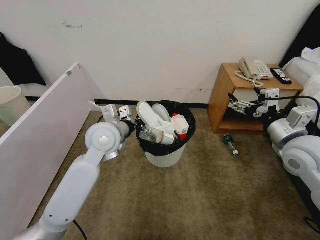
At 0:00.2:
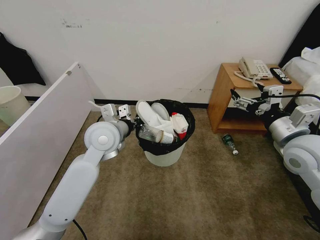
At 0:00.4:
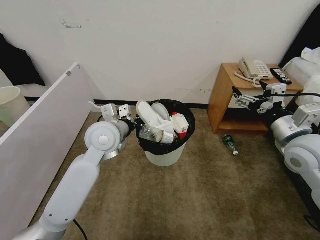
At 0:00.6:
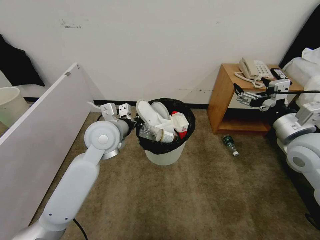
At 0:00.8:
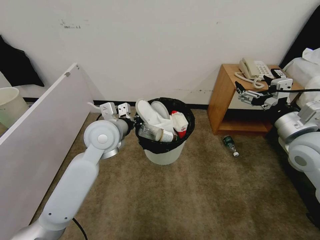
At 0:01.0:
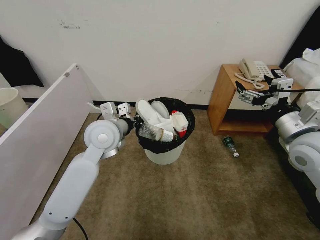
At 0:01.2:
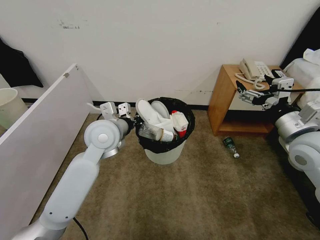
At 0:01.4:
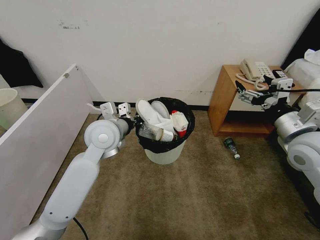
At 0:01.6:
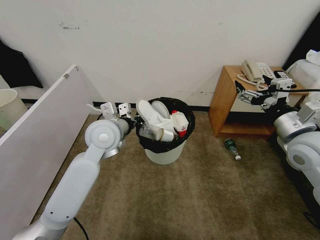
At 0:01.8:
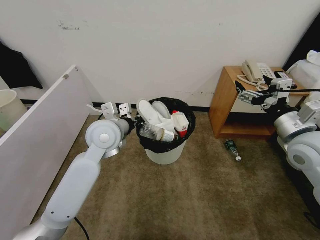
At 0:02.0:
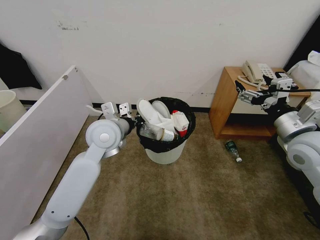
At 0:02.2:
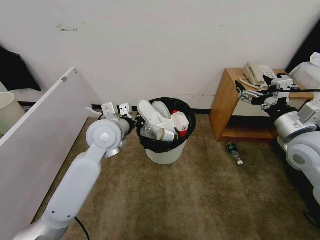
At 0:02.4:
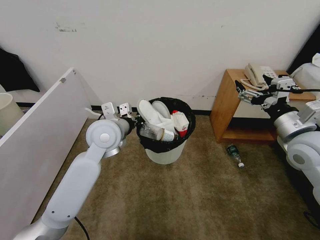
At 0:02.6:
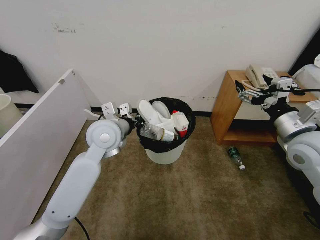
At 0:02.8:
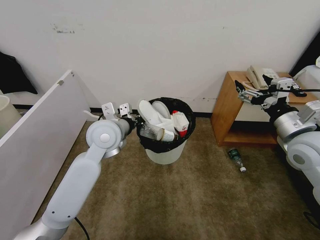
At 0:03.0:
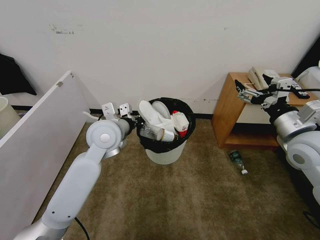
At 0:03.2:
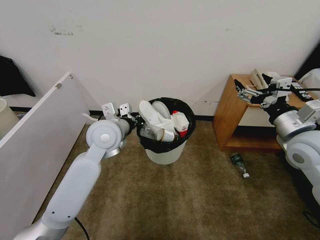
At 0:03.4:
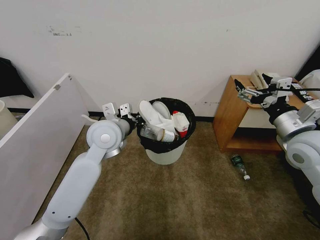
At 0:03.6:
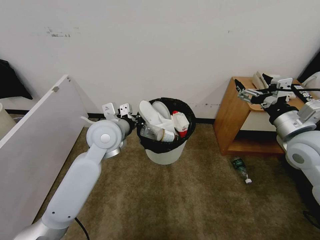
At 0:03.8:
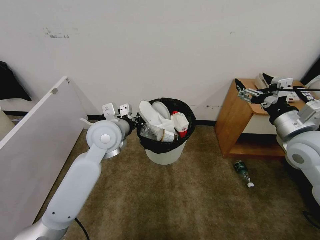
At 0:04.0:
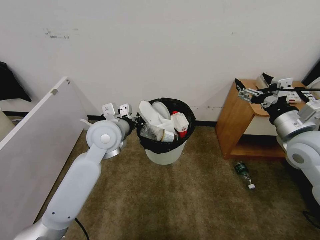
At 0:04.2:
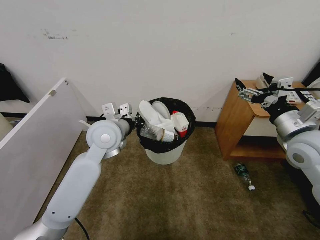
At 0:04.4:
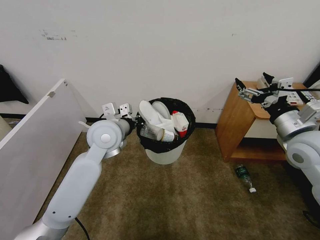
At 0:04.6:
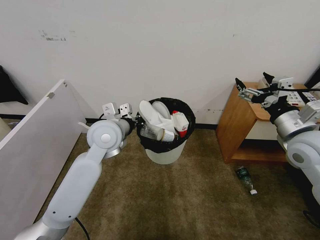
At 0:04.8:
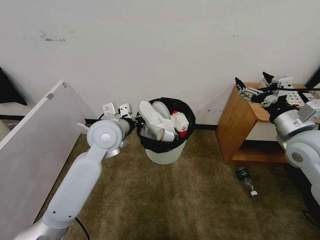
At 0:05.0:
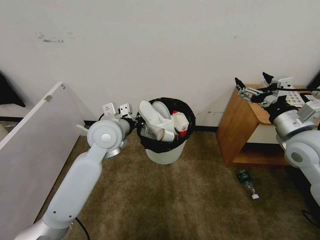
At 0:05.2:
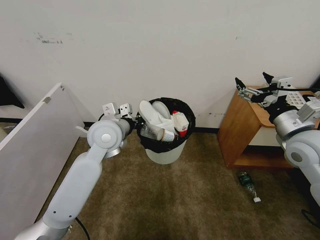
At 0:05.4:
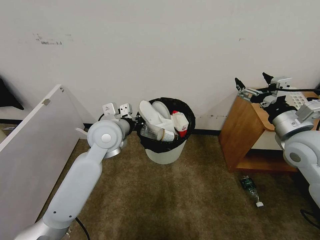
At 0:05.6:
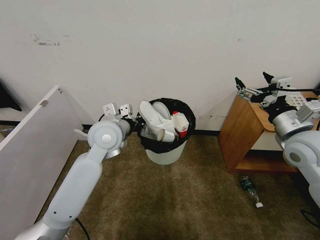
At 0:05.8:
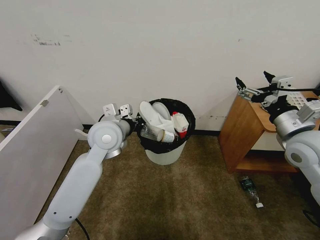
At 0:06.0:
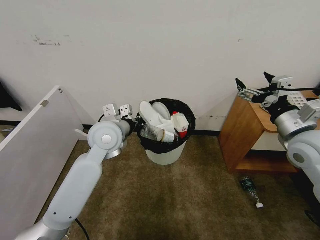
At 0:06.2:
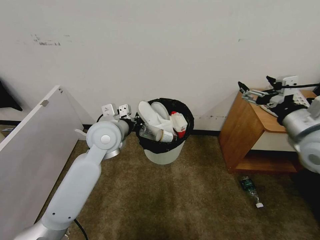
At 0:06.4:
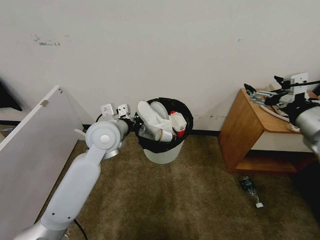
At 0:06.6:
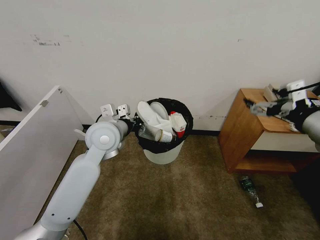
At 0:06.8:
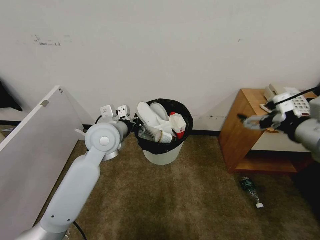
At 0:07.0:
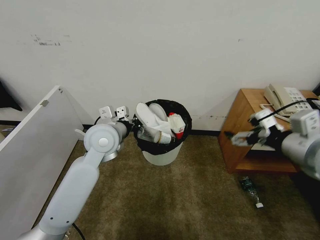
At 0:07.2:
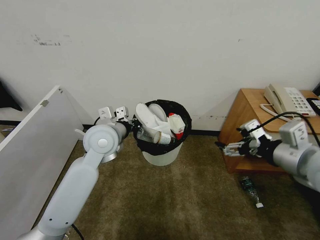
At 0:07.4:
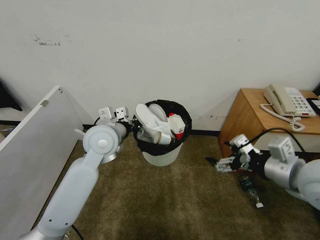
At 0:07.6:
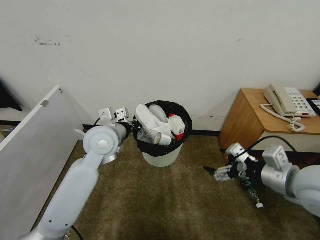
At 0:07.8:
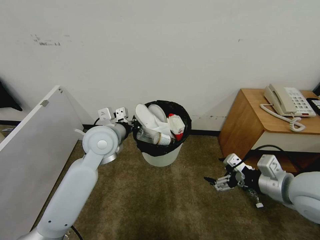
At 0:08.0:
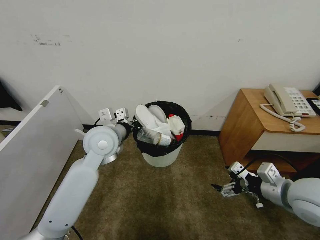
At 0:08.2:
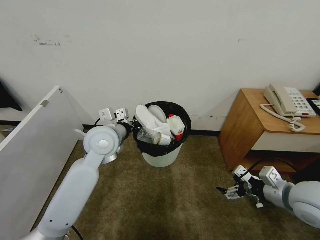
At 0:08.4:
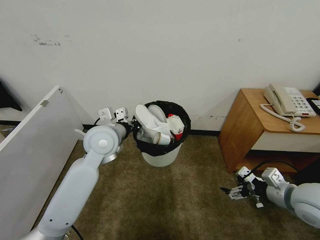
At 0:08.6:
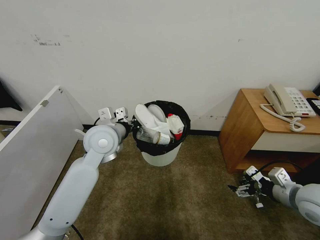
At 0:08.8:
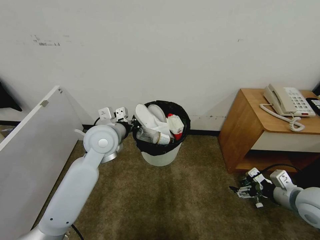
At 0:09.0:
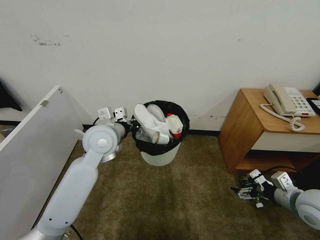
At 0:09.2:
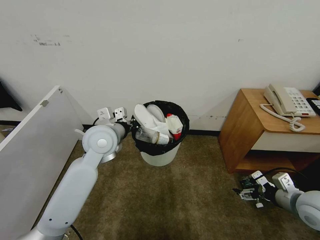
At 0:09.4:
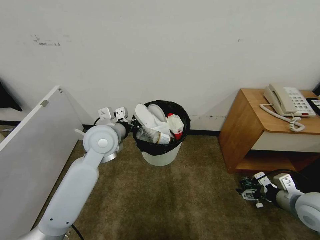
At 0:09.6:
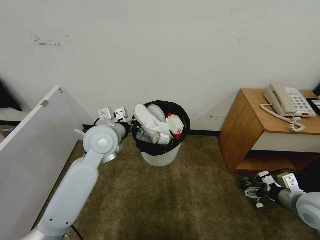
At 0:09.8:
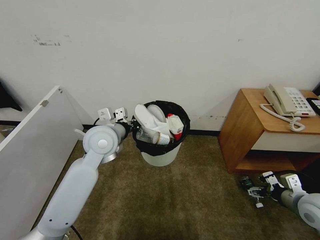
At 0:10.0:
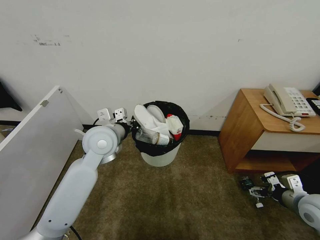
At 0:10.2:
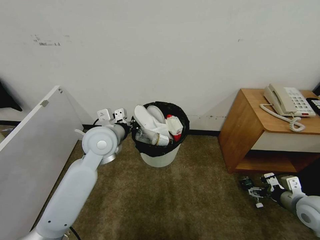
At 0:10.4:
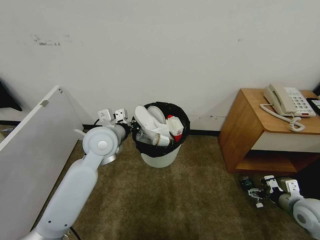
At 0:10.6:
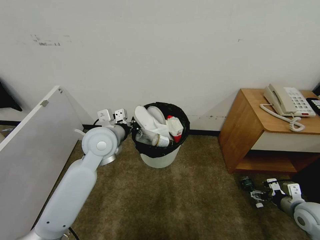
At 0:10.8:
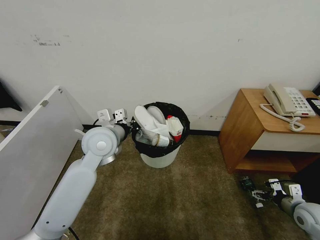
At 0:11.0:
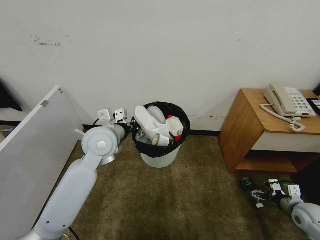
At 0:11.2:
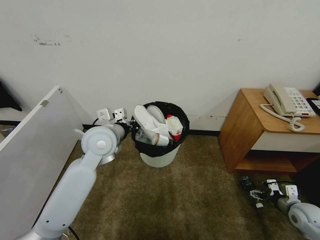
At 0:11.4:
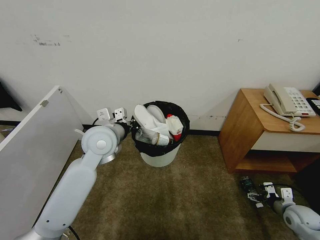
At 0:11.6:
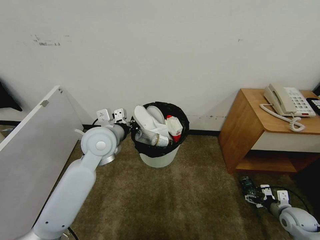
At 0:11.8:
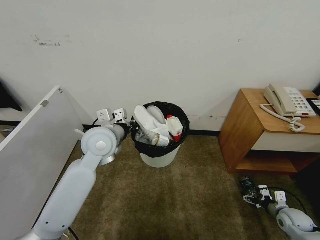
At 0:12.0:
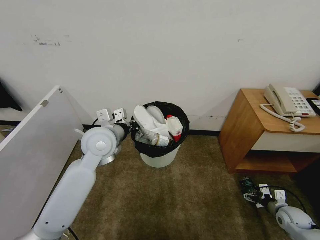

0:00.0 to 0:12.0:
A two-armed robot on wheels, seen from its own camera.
Task of the whole recording: Pick up the trash bin, then pick up the garbage from the floor and place it into the trash bin.
0:00.0 to 0:01.6: The grippers make only small movements.
0:01.6 to 0:06.0: Both grippers stay about where they are.
0:06.0 to 0:07.6: The right gripper heads backward, covering some 10 cm.
0:07.6 to 0:09.0: The right gripper travels downward and to the right by roughly 15 cm.
0:09.0 to 0:10.4: The right gripper goes some 10 cm downward and to the right.
0:10.4 to 0:12.0: The right gripper travels downward by some 15 cm.

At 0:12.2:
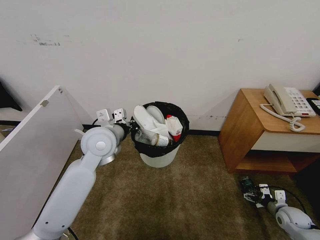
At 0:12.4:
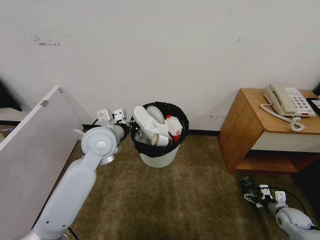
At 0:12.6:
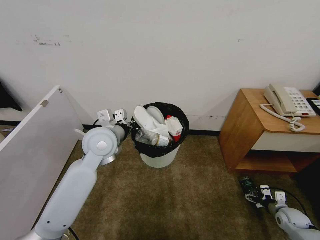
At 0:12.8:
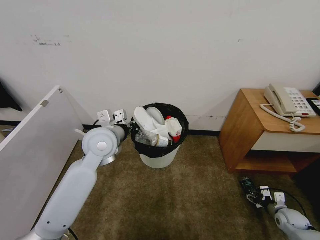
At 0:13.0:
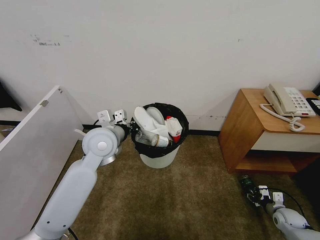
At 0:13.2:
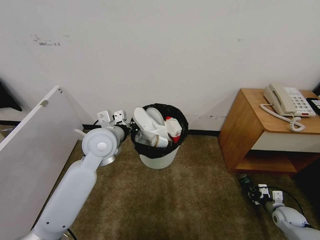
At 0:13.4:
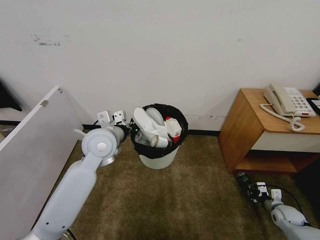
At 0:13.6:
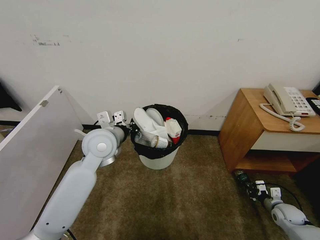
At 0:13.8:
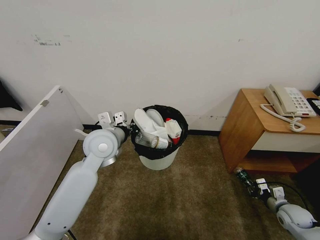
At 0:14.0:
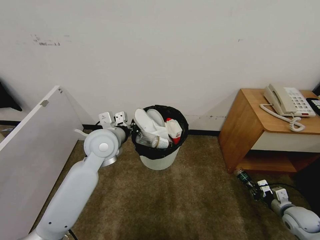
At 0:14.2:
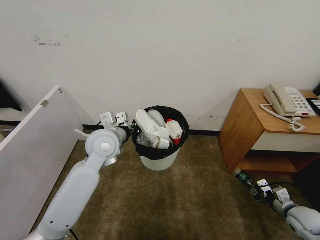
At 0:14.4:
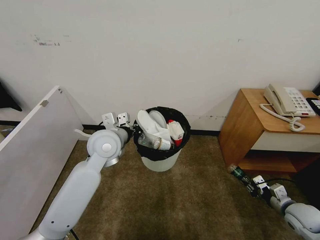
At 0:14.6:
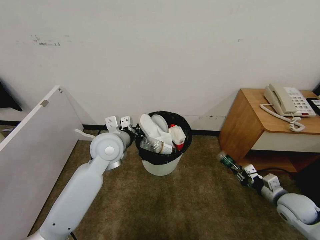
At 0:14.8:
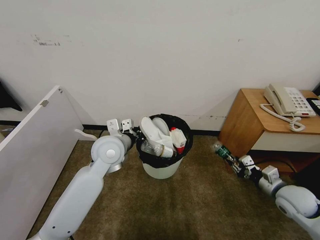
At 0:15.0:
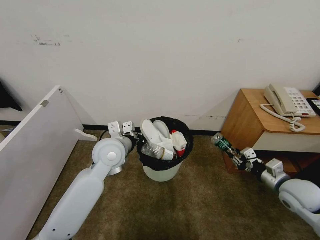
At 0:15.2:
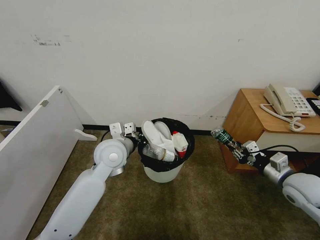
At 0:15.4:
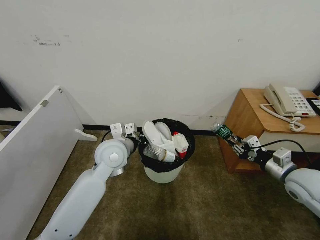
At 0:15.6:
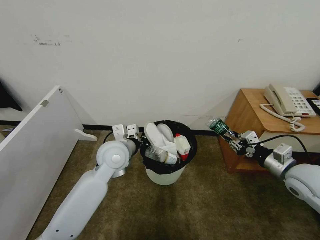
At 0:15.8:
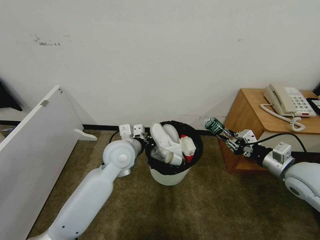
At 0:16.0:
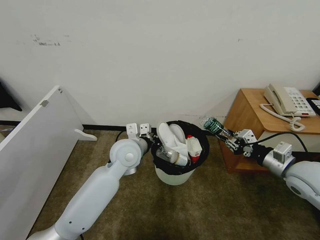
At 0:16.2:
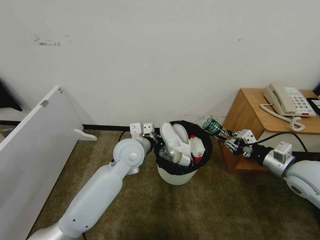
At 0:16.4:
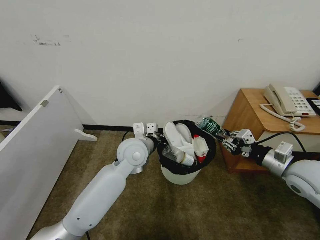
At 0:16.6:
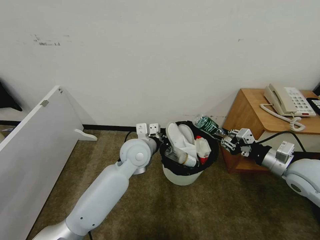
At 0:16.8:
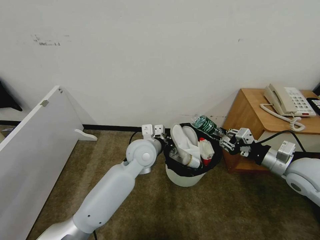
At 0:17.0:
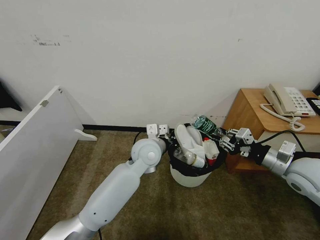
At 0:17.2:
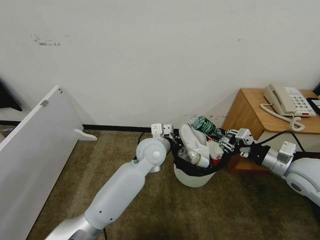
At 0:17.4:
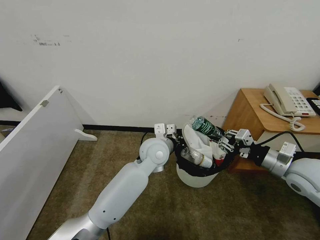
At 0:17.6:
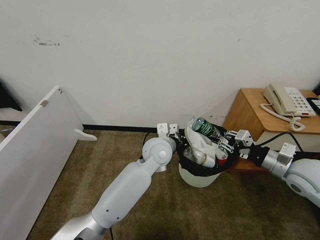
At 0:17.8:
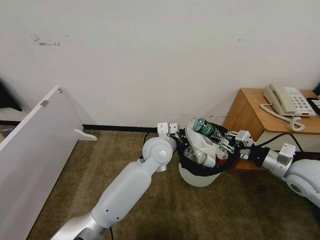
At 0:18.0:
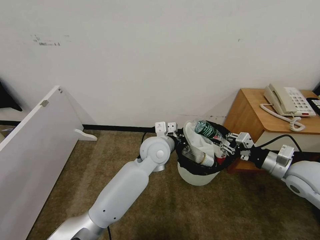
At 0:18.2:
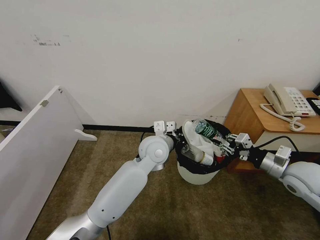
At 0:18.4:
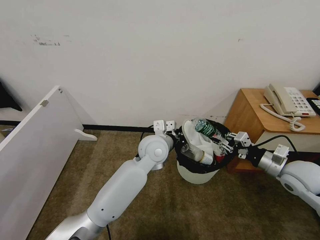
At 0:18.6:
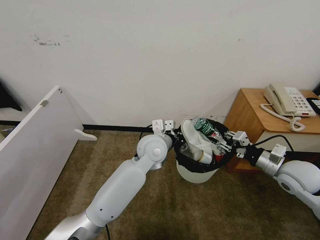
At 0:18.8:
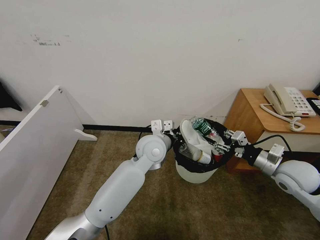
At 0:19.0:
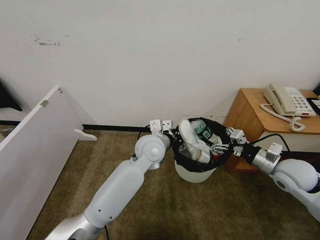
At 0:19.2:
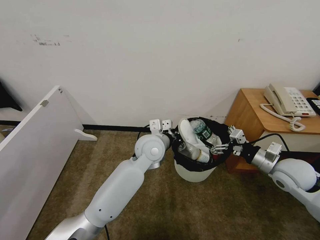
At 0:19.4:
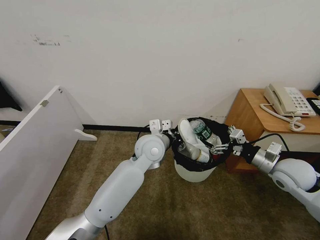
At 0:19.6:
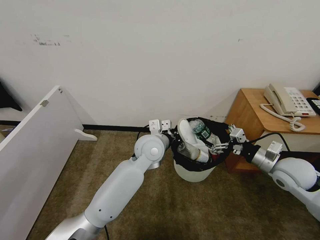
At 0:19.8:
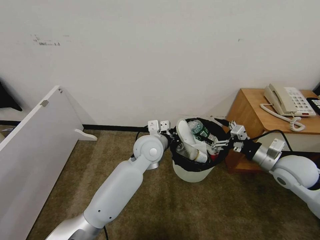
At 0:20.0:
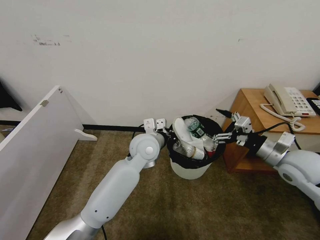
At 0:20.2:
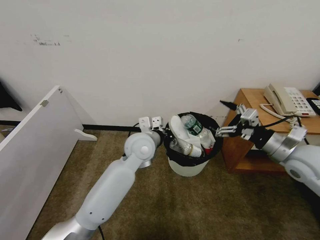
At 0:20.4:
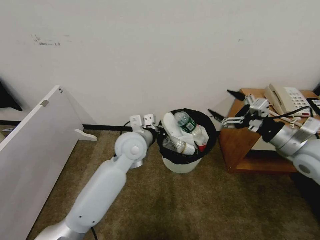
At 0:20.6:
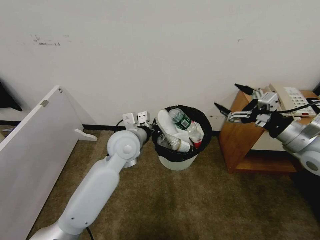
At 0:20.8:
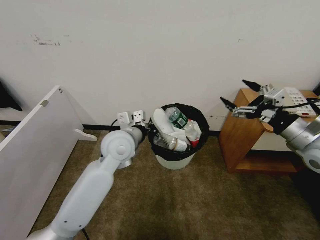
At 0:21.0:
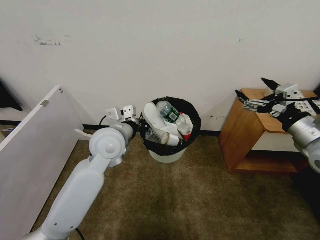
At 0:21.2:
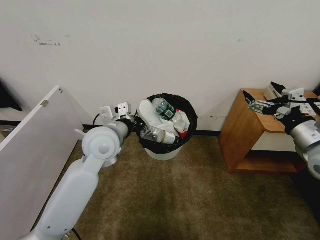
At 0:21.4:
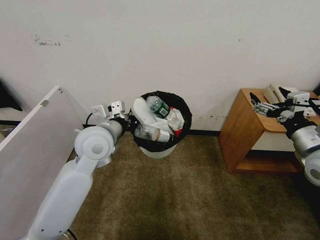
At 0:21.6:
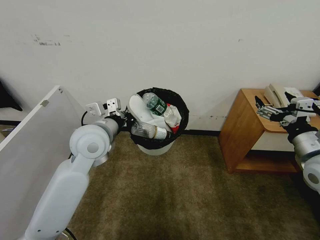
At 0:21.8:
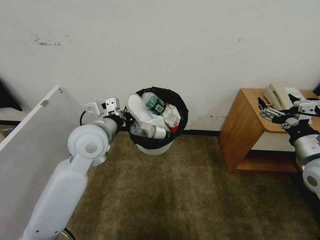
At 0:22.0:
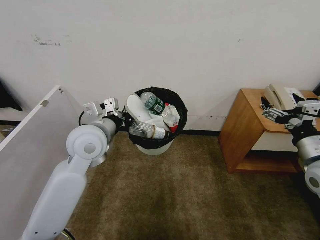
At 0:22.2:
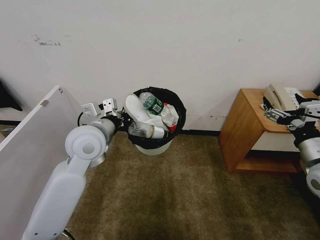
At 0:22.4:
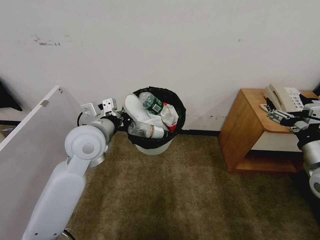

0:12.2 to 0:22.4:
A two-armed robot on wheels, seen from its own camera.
Task of the whole recording: Pick up the trash bin, then pick up the garbage from the floor and place it into the trash bin.
0:12.2 to 0:13.6: The right gripper closes up.
0:13.6 to 0:15.2: The right gripper moves upward, some 20 cm.
0:15.2 to 0:16.6: The right gripper moves upward, about 5 cm. The left gripper travels to the right by some 5 cm.
0:16.6 to 0:18.0: The left gripper shifts some 5 cm to the right.
0:18.0 to 0:19.4: The right gripper opens up.
0:19.4 to 0:21.0: The right gripper travels upward by approximately 15 cm. Meanwhile the left gripper is displaced to the left and upward by some 15 cm.
0:21.0 to 0:22.4: The left gripper ends up some 5 cm from where it was. Meanwhile the right gripper travels downward by approximately 5 cm.
